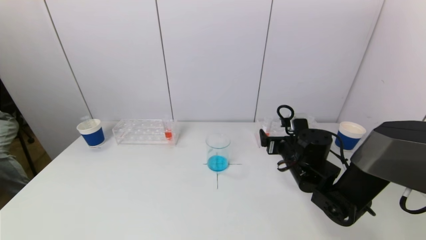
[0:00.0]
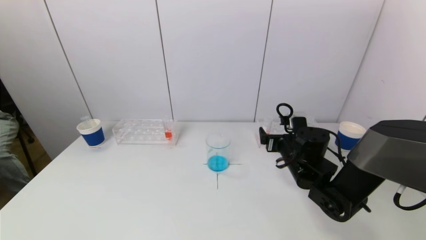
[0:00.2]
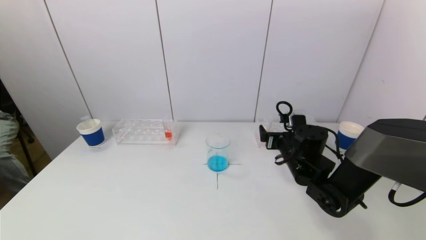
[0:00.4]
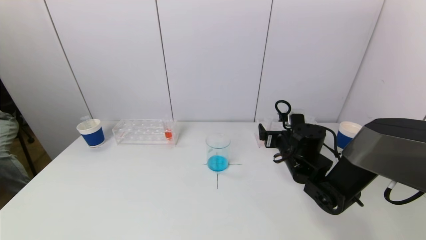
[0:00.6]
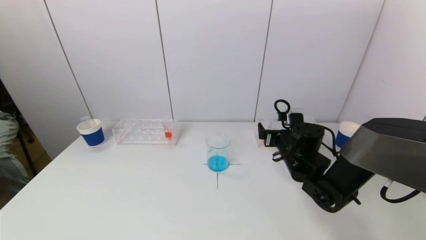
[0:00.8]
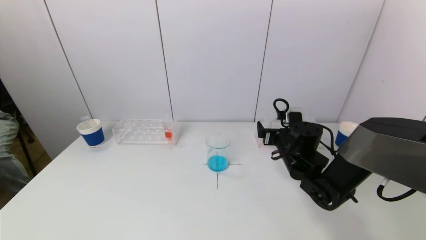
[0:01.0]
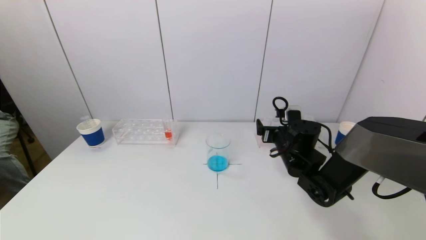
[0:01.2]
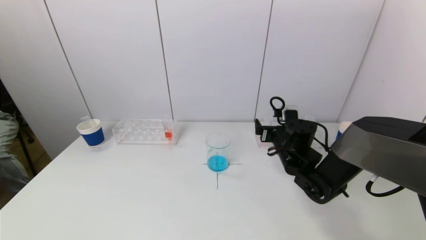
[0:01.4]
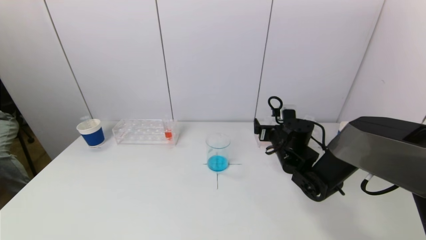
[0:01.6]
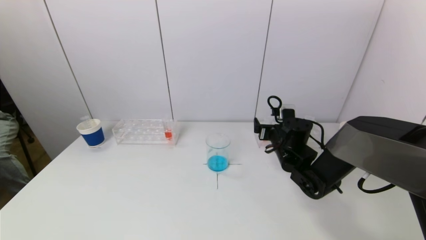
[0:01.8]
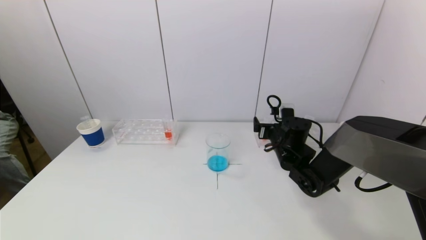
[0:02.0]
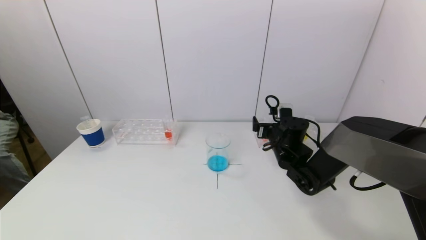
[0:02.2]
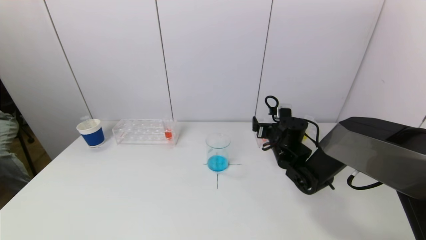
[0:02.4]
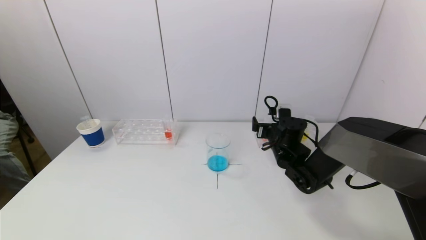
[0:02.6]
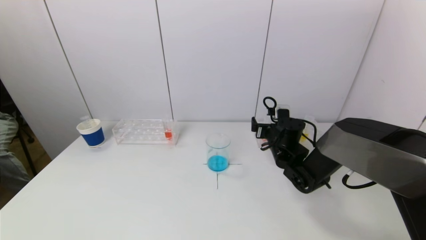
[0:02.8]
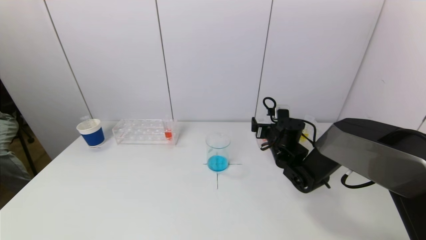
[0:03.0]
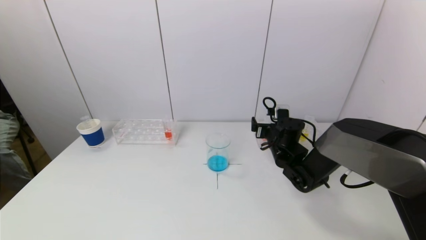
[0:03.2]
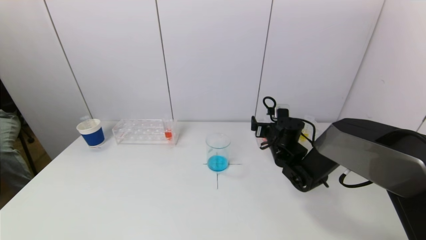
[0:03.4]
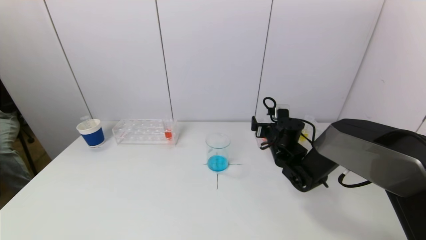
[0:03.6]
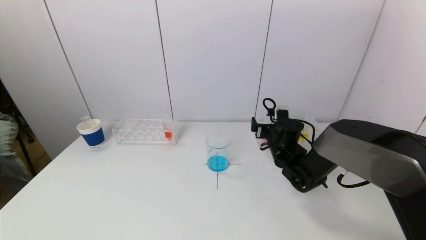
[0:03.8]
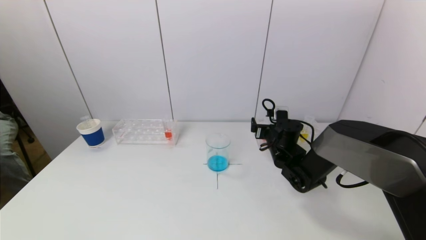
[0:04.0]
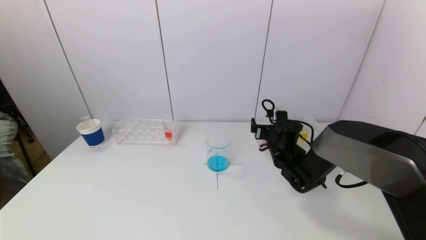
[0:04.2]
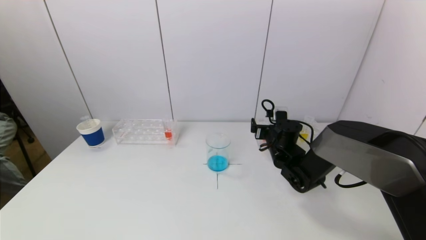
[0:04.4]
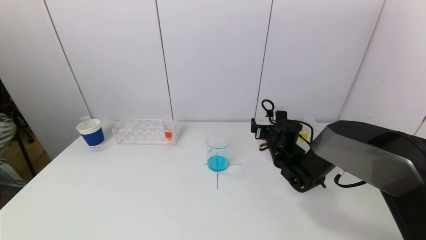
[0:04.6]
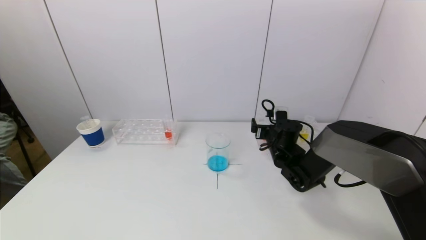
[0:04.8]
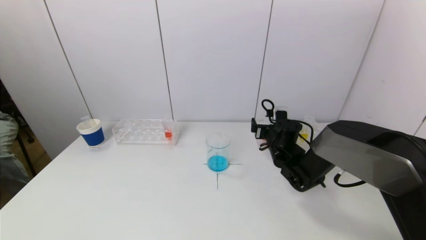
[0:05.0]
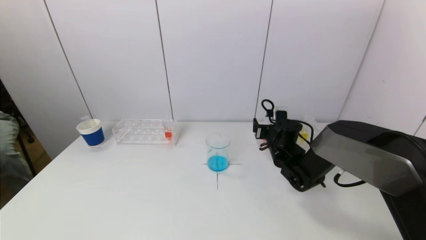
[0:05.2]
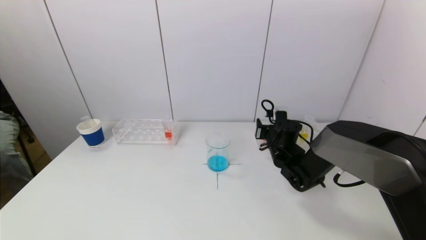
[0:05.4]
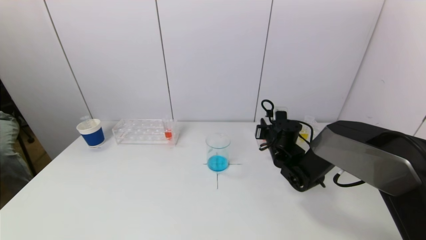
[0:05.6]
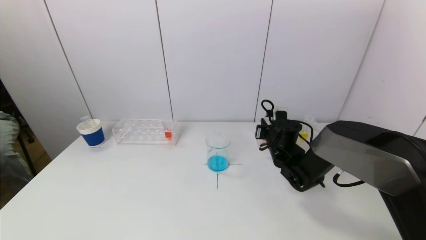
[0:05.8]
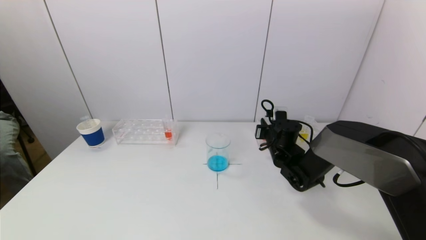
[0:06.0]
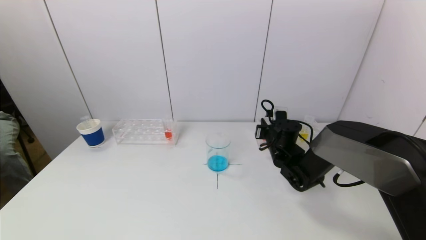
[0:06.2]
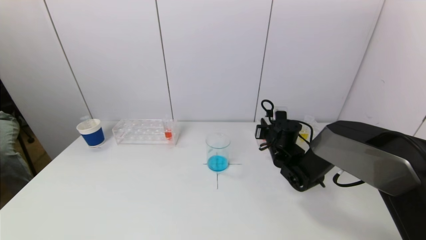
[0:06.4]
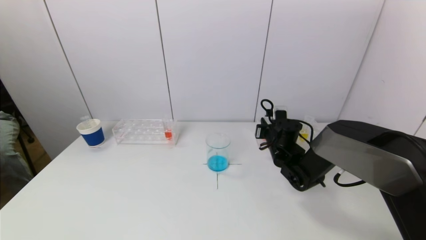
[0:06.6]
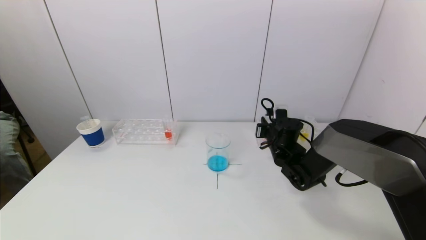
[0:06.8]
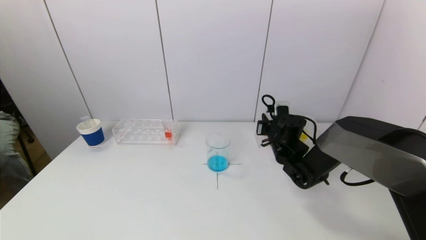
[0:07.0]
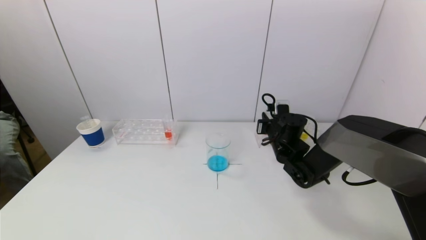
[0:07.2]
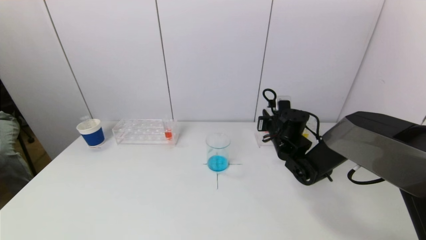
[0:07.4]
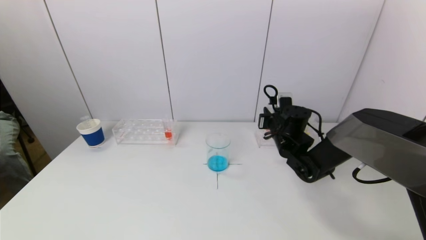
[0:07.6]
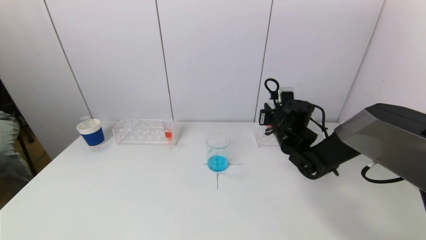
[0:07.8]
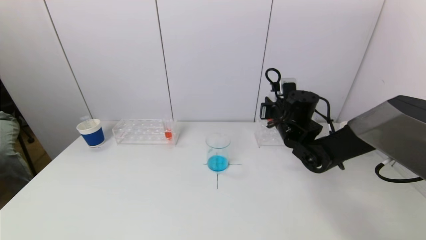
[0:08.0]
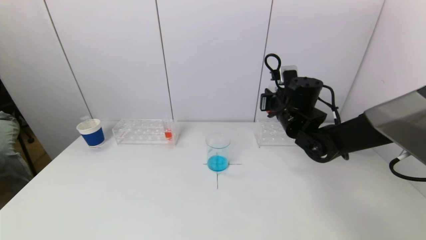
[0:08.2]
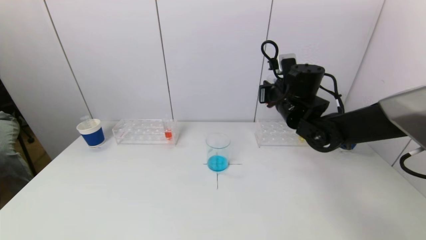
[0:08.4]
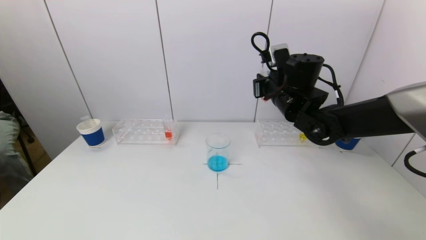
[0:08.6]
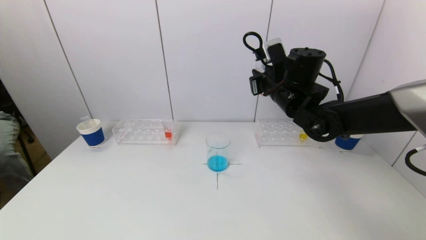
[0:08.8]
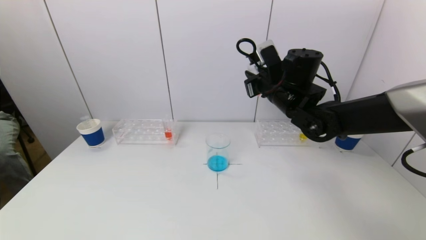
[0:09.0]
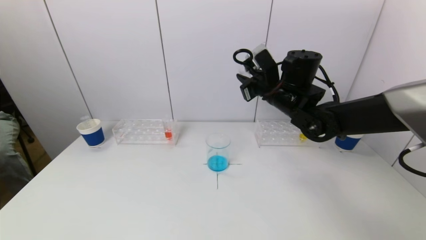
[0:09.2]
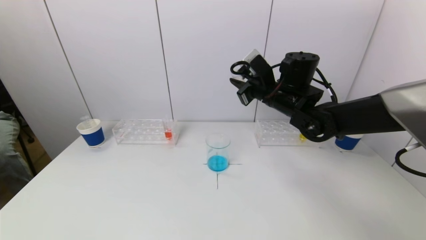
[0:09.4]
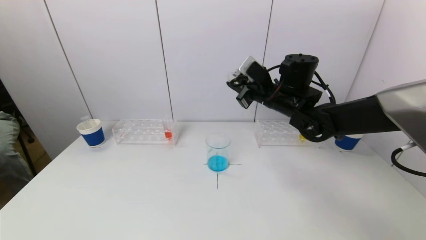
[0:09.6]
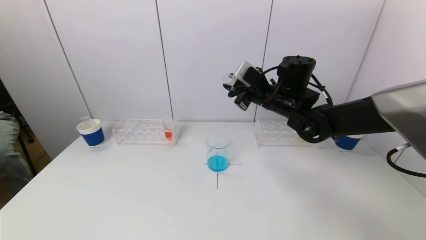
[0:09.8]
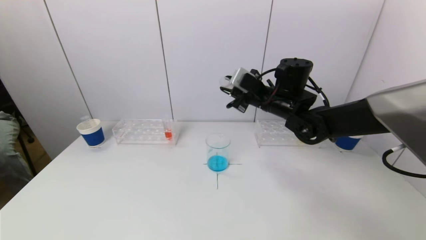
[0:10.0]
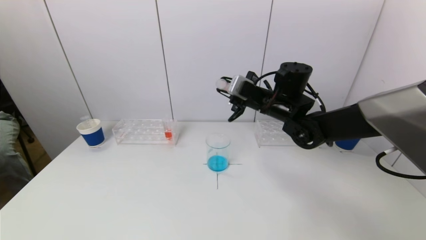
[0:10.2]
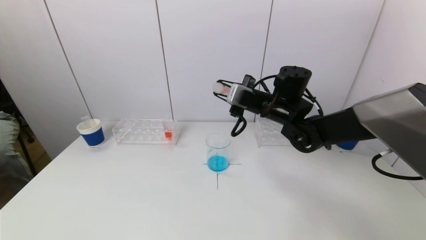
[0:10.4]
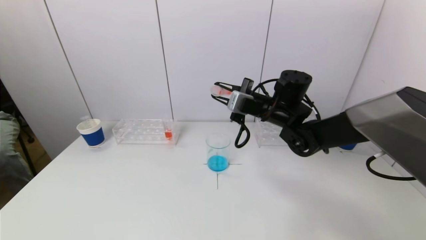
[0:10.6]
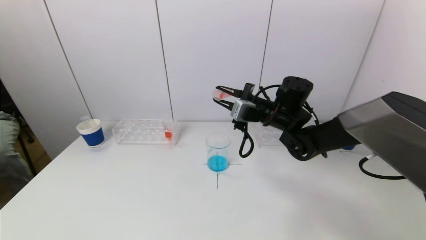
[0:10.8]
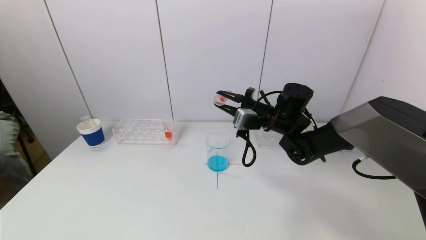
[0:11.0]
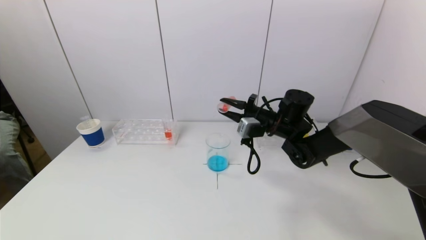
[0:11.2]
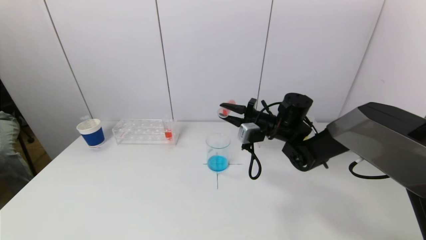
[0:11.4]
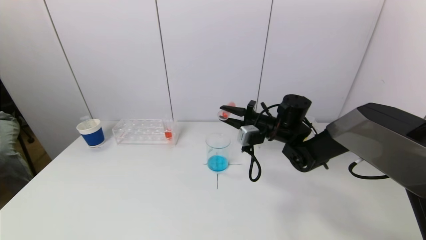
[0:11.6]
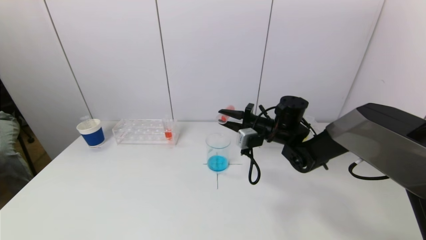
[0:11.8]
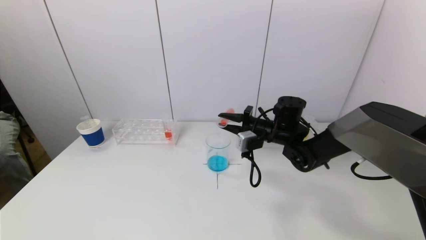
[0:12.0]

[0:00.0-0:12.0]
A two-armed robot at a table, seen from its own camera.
Task of the whole recording: pick up a test tube with pigment on left test tube rack and a test tube with pigment on right test tube rack by grippers and pour them into the beaker.
Step, 0:00.0 to 0:05.8: Grasp the red reagent with the right gripper.
0:00.0 to 0:01.6: The right gripper shifts approximately 5 cm forward.
0:01.6 to 0:03.0: There are only small adjustments of the grippers.
0:03.0 to 0:04.4: The two grippers keep their place.
0:04.4 to 0:06.0: The right gripper closes up.
0:06.0 to 0:07.6: The right gripper shifts some 5 cm upward.
0:07.6 to 0:09.0: The right gripper heads upward, covering about 15 cm.
0:10.4 to 0:12.0: The right gripper moves downward, about 10 cm.

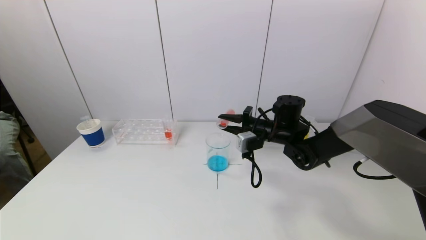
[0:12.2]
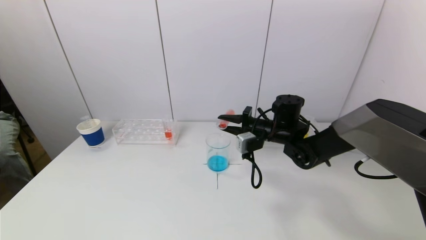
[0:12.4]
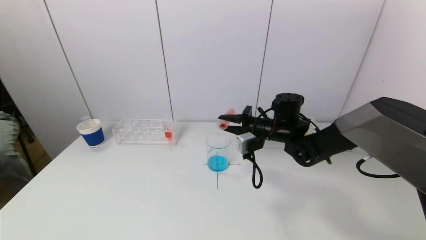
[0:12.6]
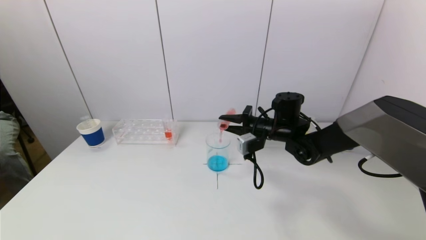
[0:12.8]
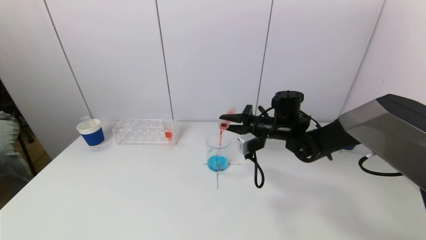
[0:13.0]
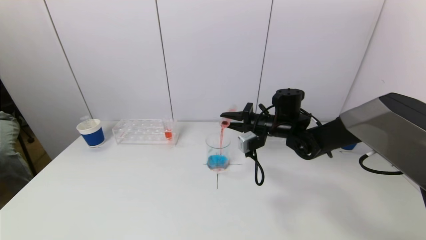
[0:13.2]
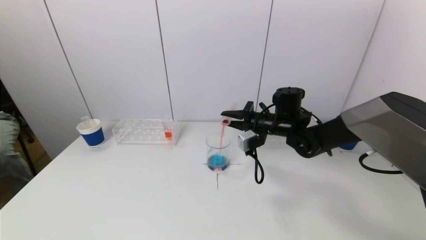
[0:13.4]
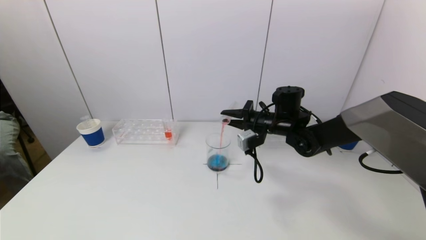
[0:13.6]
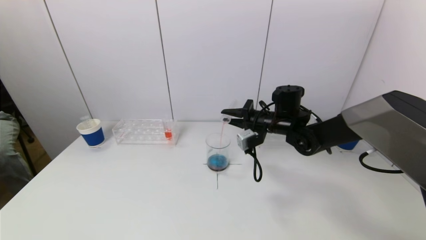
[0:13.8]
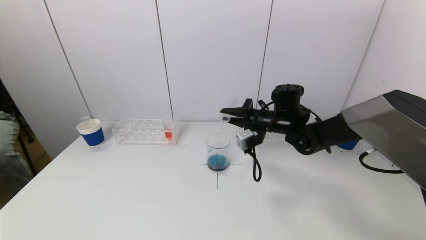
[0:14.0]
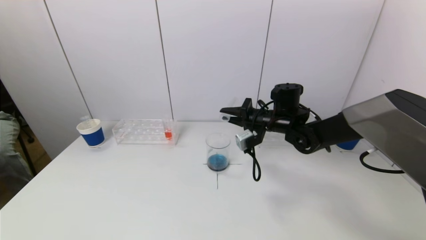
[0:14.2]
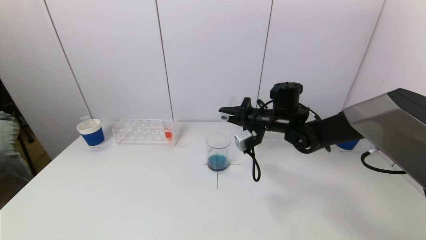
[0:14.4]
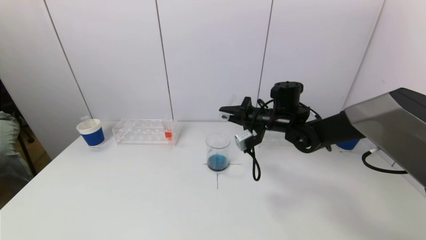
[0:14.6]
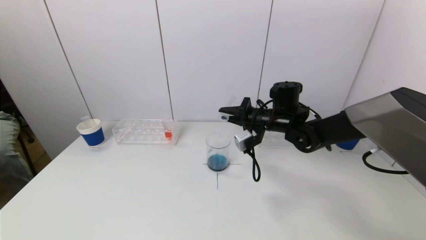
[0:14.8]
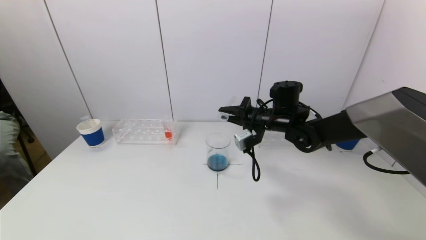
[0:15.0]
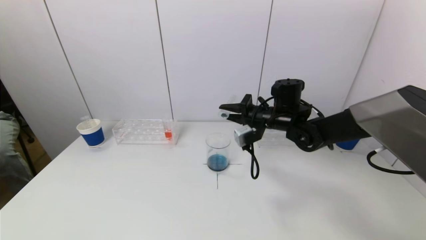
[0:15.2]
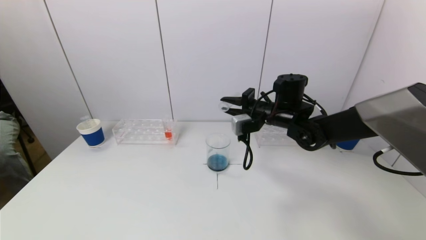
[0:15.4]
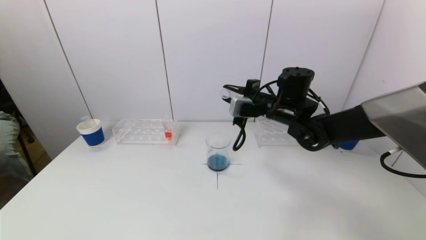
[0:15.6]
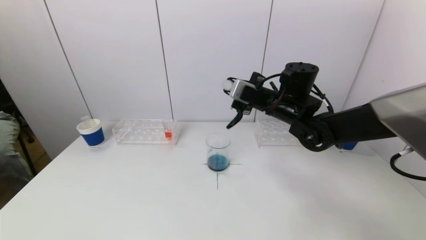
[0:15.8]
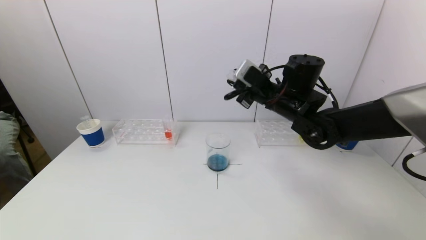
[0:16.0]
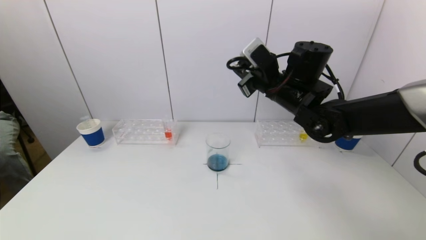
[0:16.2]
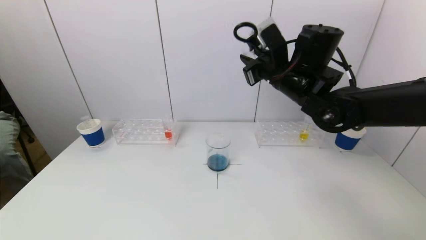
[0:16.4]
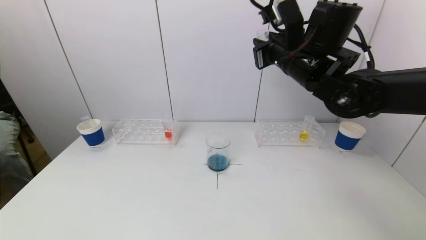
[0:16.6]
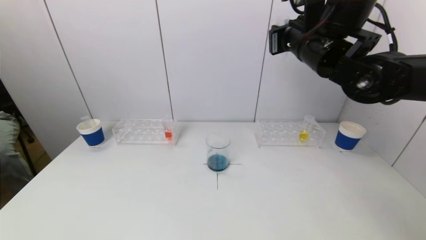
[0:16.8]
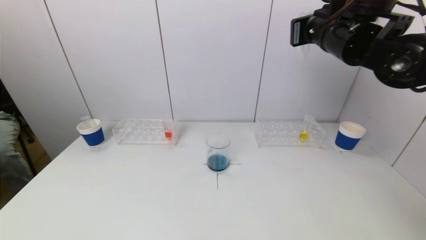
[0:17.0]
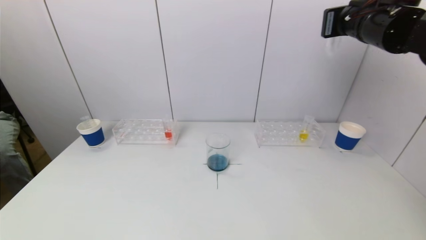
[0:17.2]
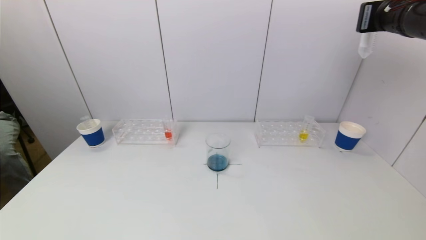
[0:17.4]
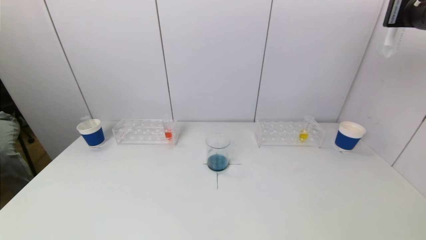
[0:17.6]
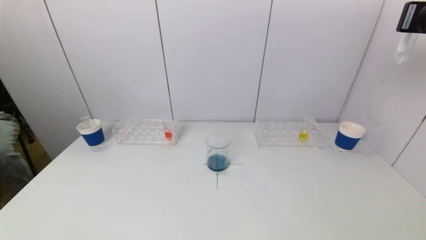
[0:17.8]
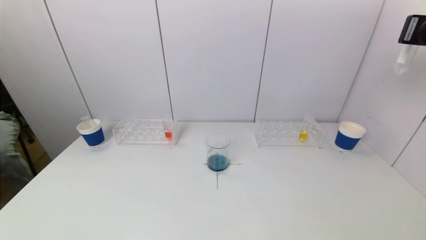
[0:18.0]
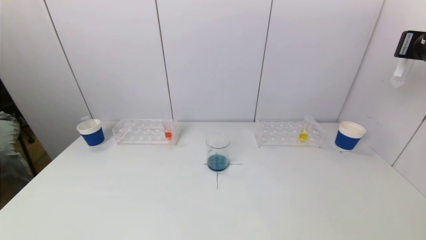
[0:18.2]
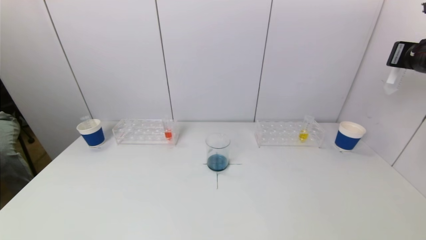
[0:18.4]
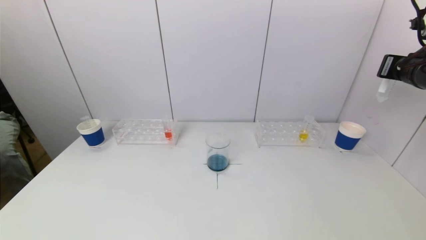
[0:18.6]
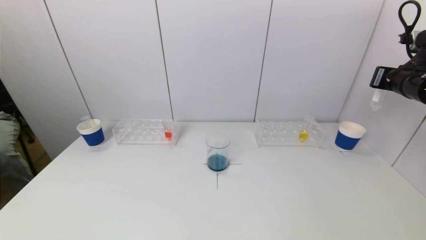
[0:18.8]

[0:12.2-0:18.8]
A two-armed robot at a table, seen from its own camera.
Task of the whole recording: pick up a test tube with pigment on left test tube rack and a test tube with pigment on right test tube rack by grippers and pour them into the beaker.
Step, 0:12.2 to 0:14.2: Pour the red reagent into the graduated cylinder with the right gripper.
0:12.2 to 0:13.8: The grippers stay close to where they were, moving slightly.
0:13.8 to 0:15.4: The grippers stay close to where they were, moving slightly.
0:15.4 to 0:17.2: The right gripper is displaced upward and to the right by roughly 25 cm.
0:17.2 to 0:18.8: The right gripper is displaced to the right and downward by approximately 15 cm.
